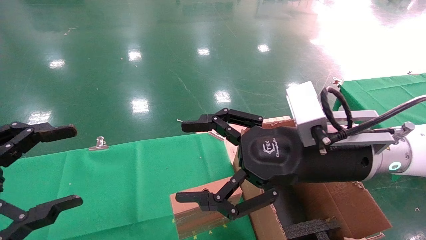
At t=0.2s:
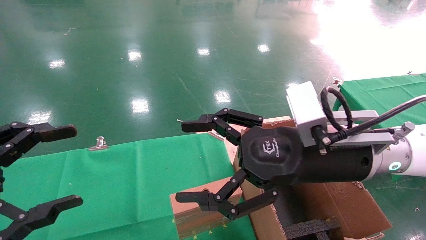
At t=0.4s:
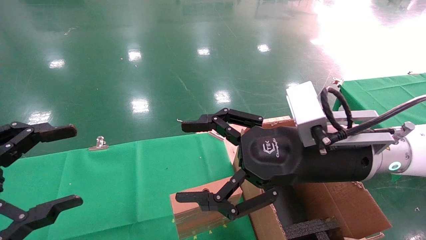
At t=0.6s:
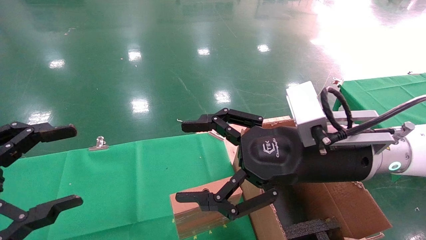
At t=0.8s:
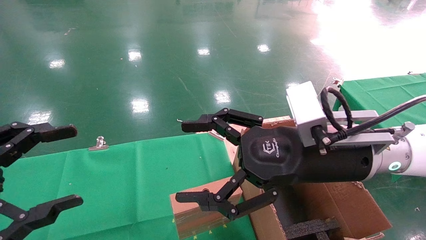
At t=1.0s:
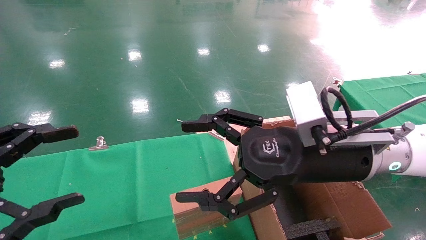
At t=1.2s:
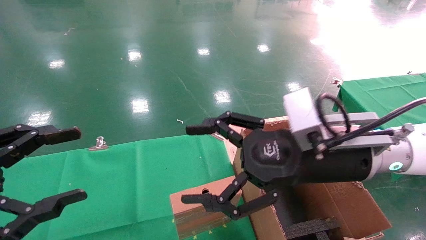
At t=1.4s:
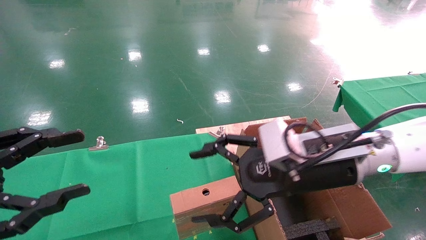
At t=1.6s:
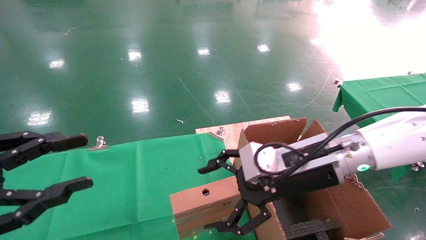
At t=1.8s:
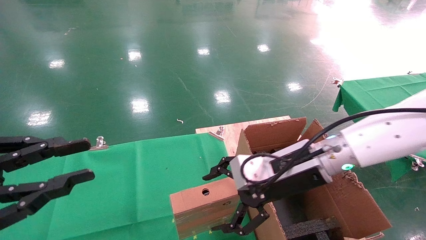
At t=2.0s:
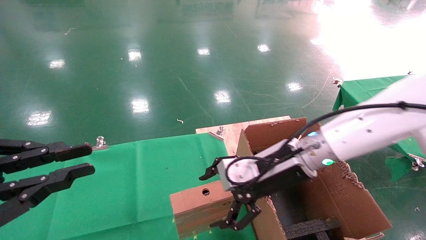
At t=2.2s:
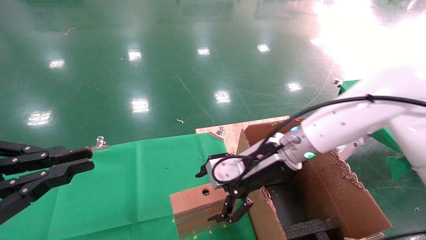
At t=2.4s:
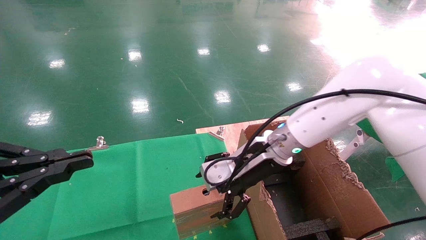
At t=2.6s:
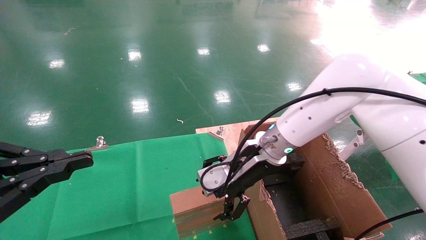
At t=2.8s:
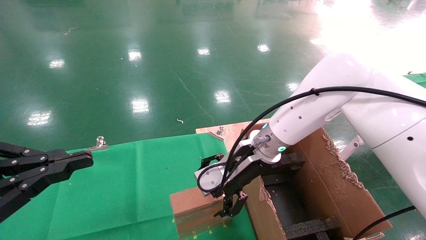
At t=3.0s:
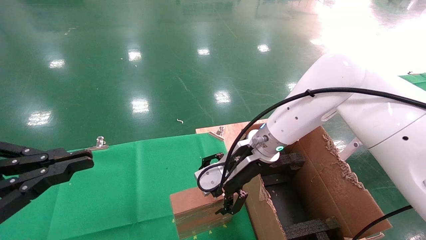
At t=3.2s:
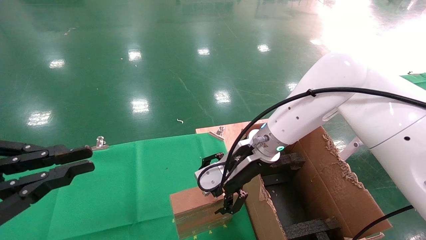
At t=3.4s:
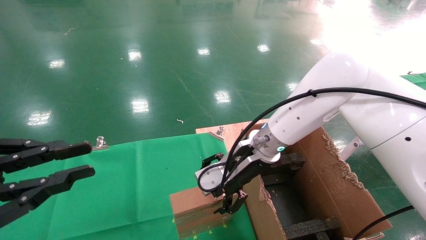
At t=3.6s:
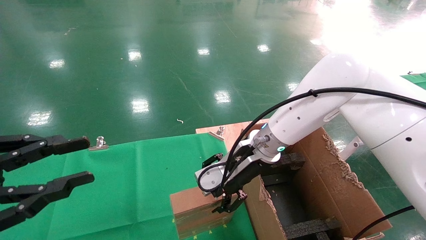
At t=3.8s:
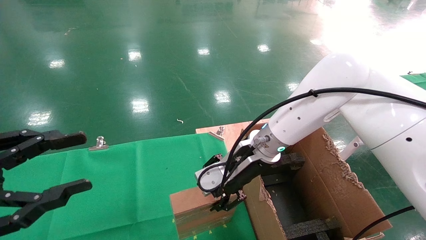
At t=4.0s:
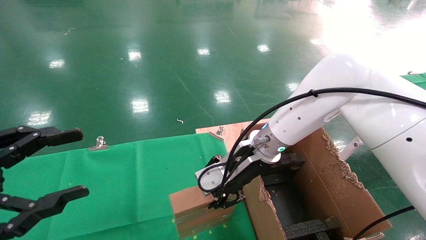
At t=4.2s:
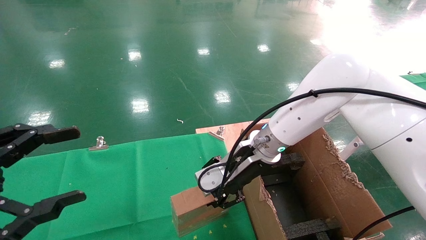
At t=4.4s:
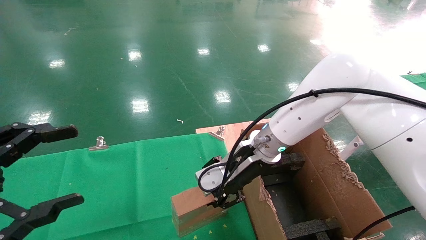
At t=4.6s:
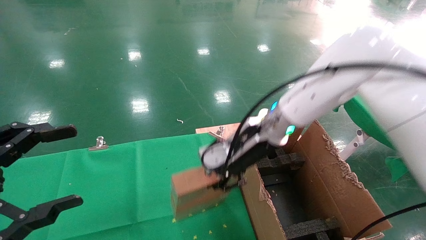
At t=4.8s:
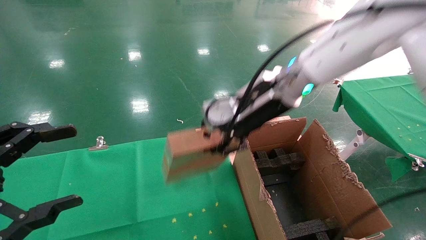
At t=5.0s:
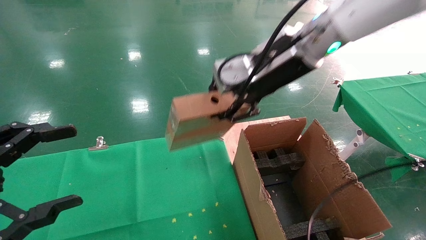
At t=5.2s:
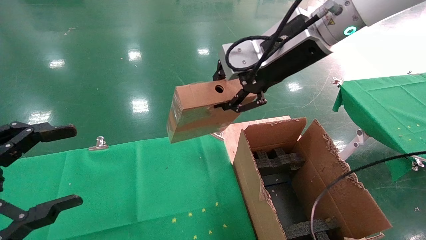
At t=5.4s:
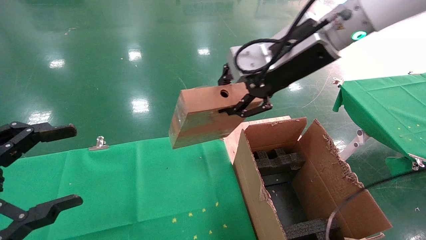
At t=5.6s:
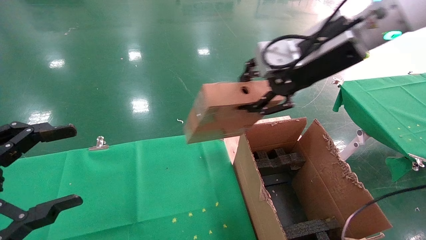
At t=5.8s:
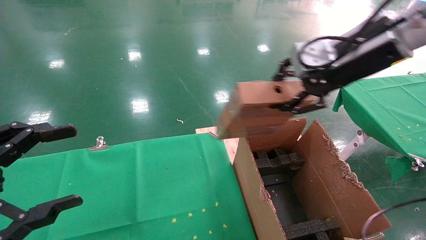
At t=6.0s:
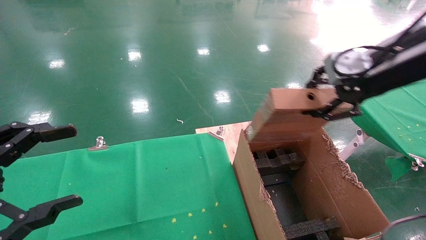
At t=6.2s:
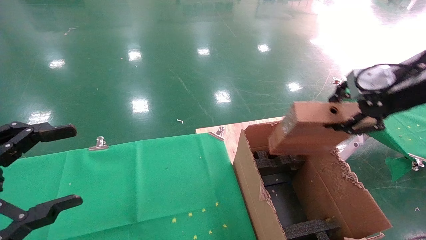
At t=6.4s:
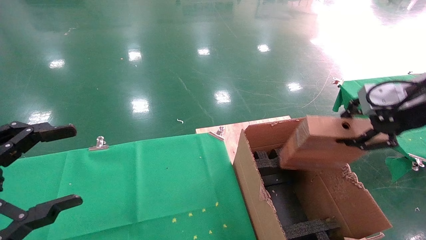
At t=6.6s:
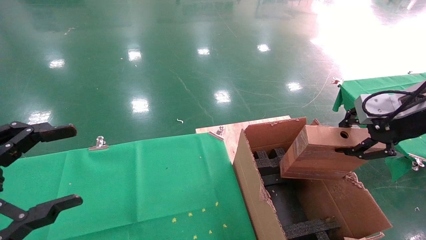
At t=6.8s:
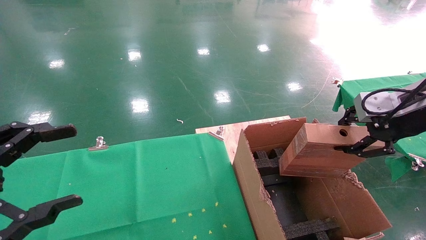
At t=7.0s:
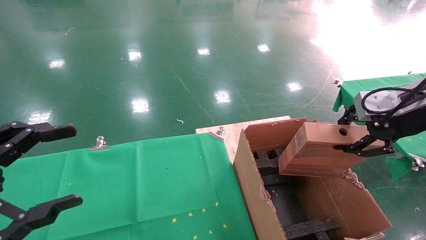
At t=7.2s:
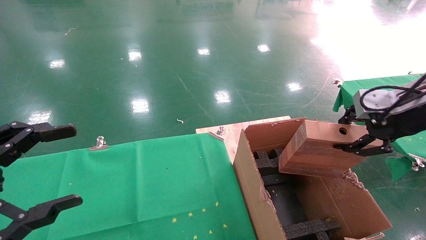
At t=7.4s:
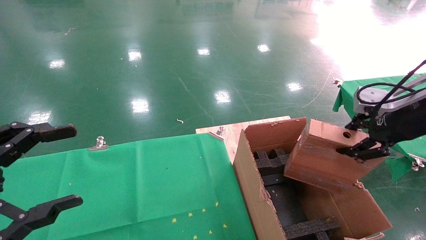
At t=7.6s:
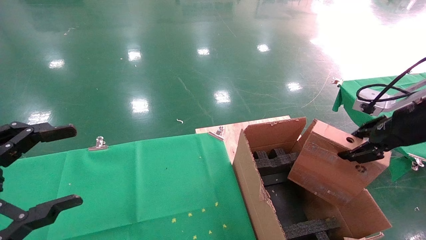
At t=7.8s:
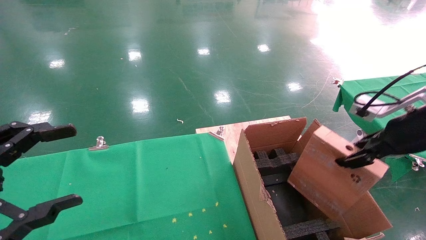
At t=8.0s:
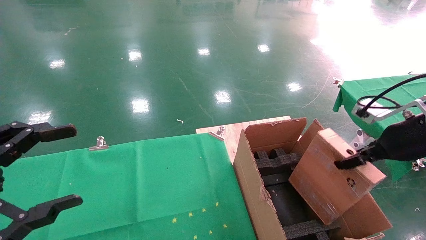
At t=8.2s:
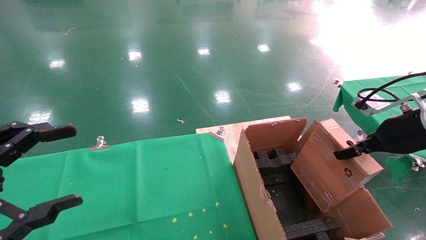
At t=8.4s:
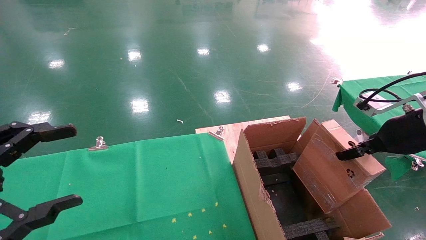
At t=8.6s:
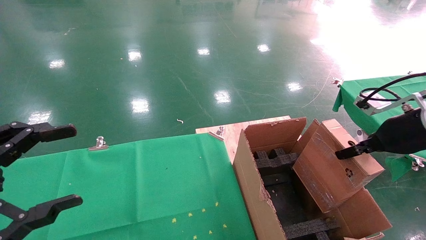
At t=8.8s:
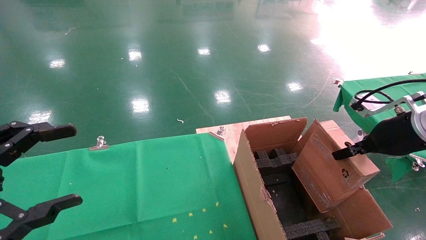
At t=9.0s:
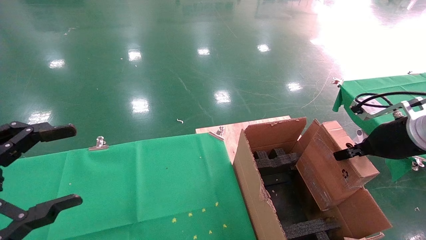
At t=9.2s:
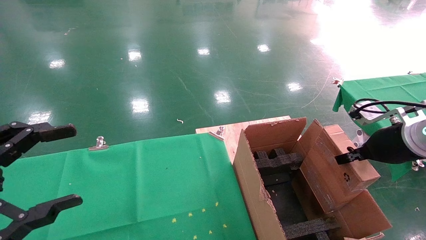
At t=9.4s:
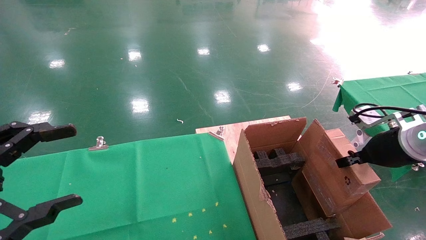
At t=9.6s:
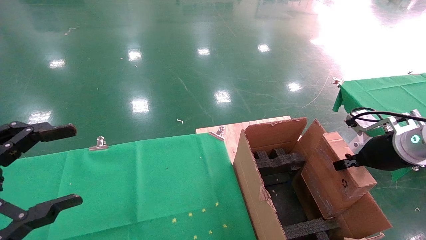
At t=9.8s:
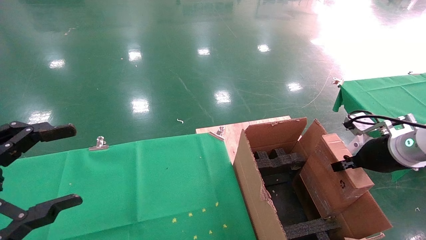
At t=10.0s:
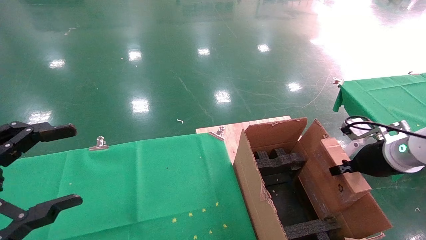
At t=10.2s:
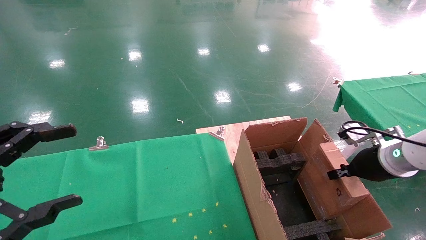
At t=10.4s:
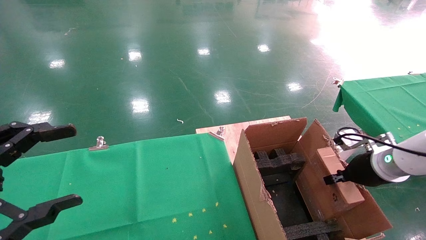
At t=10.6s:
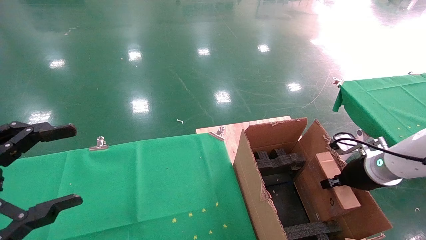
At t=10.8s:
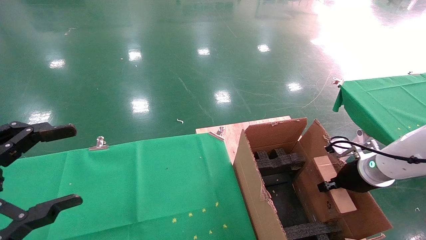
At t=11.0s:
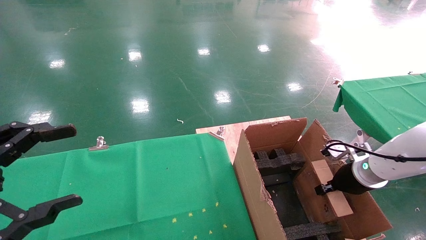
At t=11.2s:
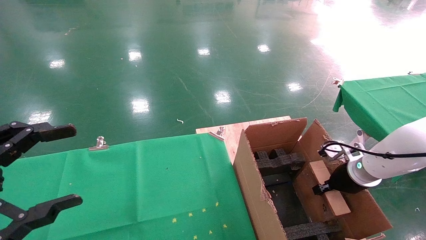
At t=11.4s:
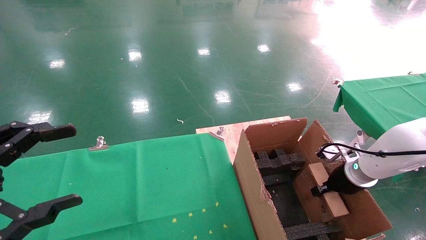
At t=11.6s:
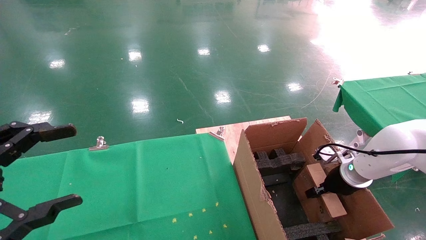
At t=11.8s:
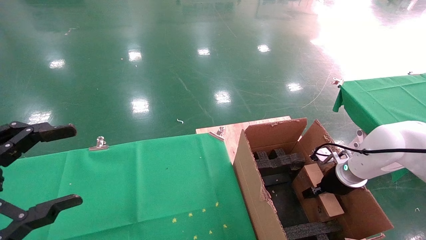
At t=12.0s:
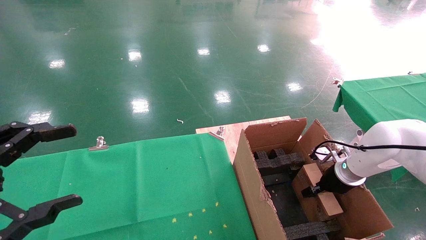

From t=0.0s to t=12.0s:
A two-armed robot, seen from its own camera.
Task of the whole recording: using a robotic arm to pick up a cardboard box and palace it the carton.
Step, from t=1.6s to t=4.4s: Pick up the mouse and the power cord paper box.
From t=0.0s to t=1.6s: The left gripper closes. Meanwhile the right gripper moves some 5 cm.
From t=1.6s to t=3.0s: The right gripper goes roughly 10 cm forward and to the left, while the left gripper closes its fingers.
From t=3.0s to t=4.4s: The left gripper opens; the right gripper closes.
From t=4.4s to t=6.0s: The right gripper moves to the right, upward and backward, some 30 cm.
From t=6.0s to t=7.6s: The right gripper is displaced downward and to the right by some 10 cm.
From t=7.6s to t=9.0s: The right gripper moves about 5 cm.
From t=9.0s to t=10.4s: The right gripper goes some 10 cm downward.
From t=10.4s to t=12.0s: The right gripper moves forward and downward, about 10 cm.

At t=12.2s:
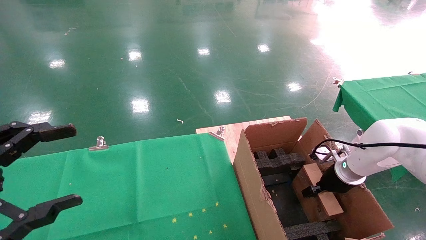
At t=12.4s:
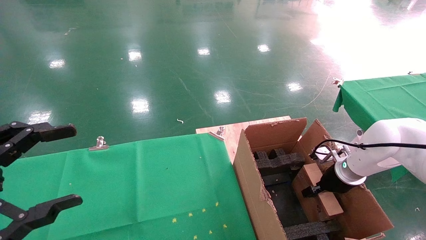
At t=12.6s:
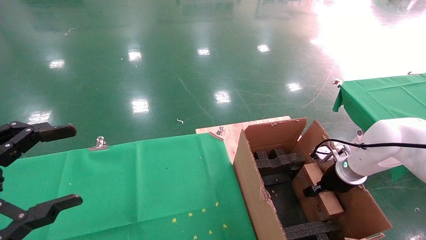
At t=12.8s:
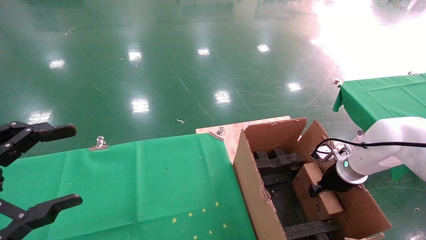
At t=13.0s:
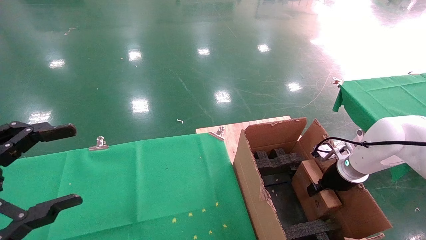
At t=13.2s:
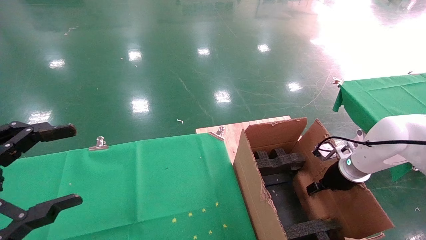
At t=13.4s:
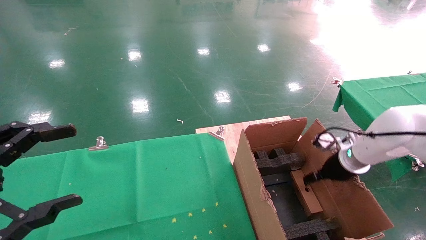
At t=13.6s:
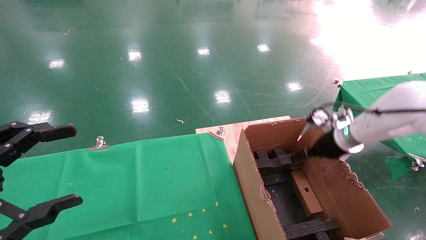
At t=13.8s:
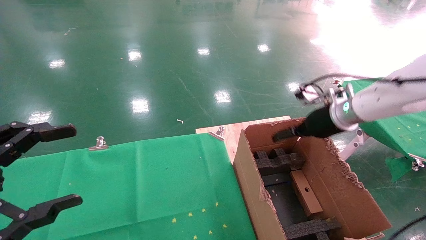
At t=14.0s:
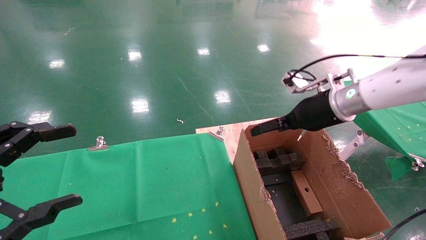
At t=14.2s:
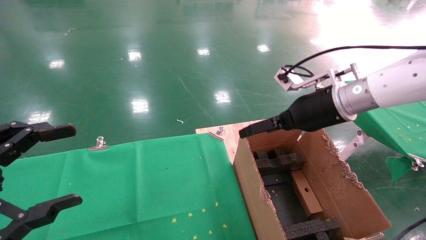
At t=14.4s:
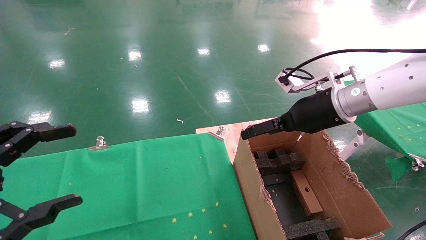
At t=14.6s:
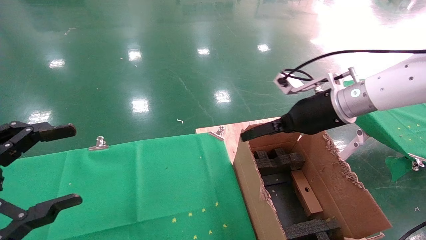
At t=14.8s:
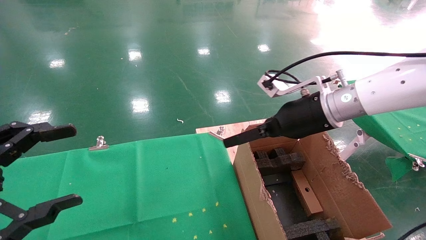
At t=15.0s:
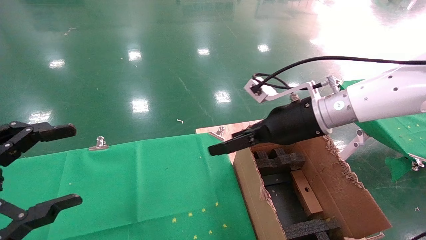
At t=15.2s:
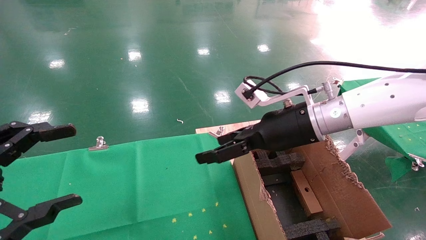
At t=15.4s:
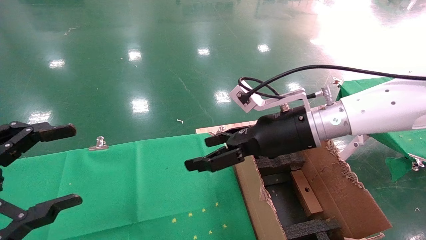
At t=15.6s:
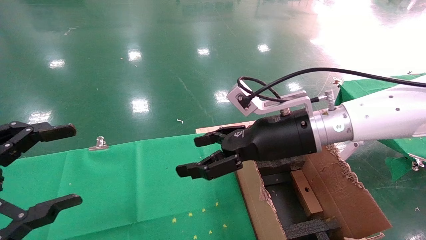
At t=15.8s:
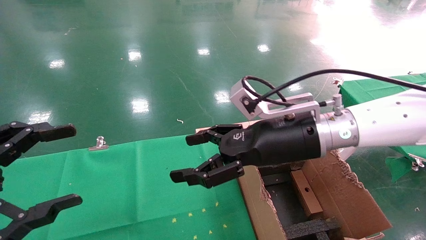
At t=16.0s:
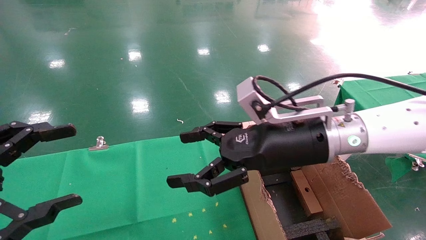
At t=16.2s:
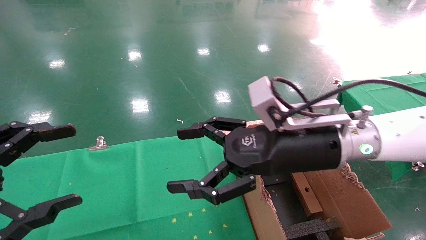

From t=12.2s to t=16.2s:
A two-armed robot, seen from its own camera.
Task of the whole recording: using a robotic arm to pick up a cardboard box and palace it the carton.
From t=12.2s to t=13.6s: The right gripper is displaced upward by roughly 10 cm, and opens up.
From t=13.6s to t=14.8s: The right gripper goes some 15 cm to the left, upward and backward.
From t=14.8s to t=16.2s: The right gripper heads backward and to the left, covering approximately 10 cm.
